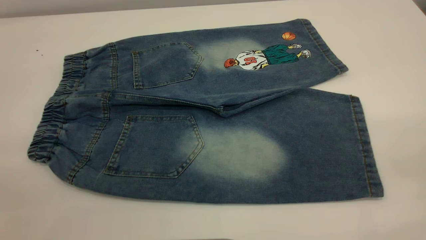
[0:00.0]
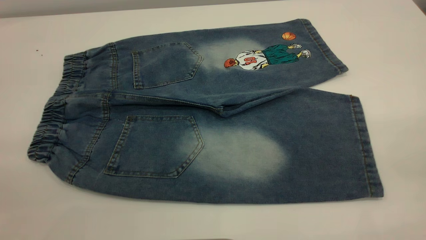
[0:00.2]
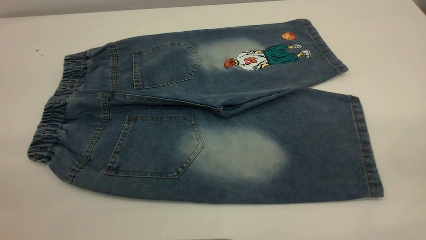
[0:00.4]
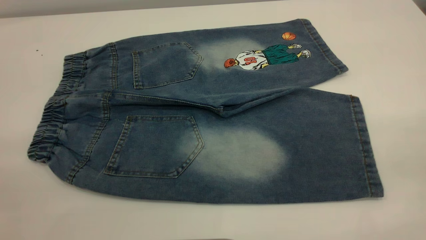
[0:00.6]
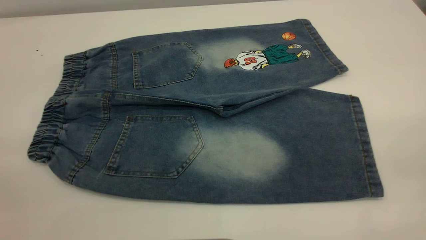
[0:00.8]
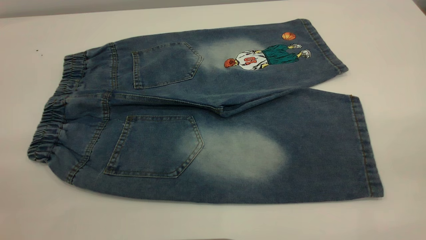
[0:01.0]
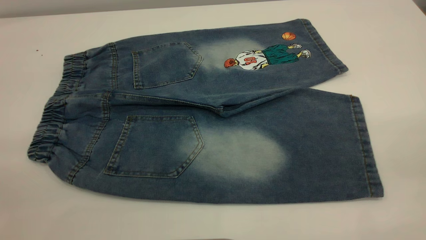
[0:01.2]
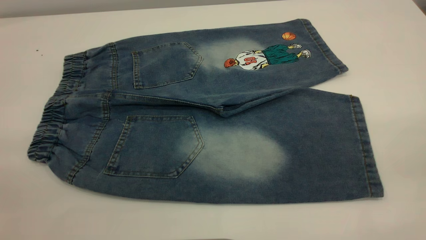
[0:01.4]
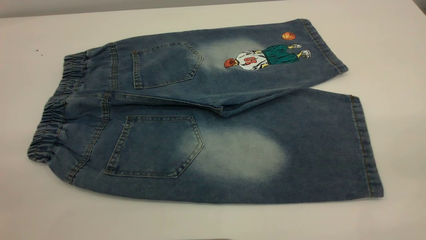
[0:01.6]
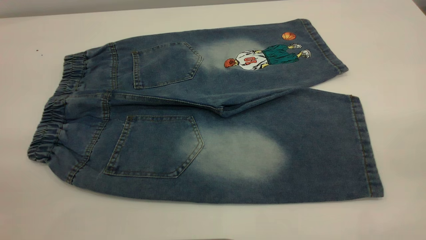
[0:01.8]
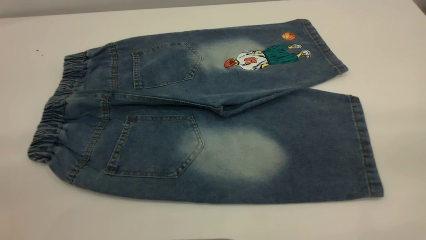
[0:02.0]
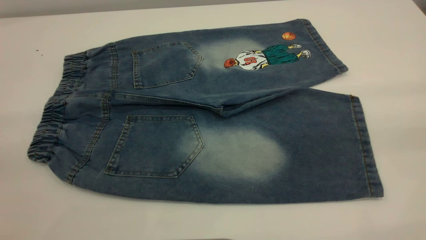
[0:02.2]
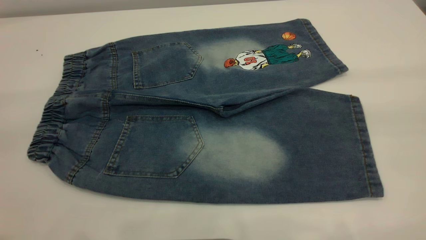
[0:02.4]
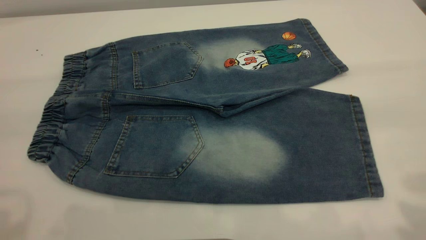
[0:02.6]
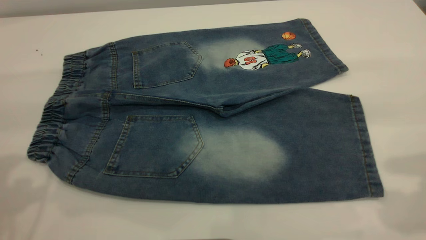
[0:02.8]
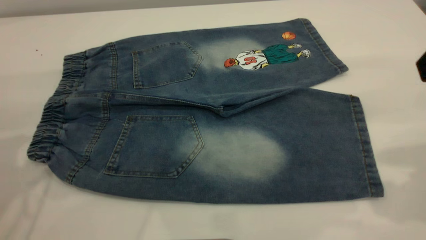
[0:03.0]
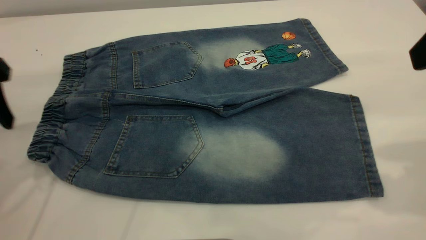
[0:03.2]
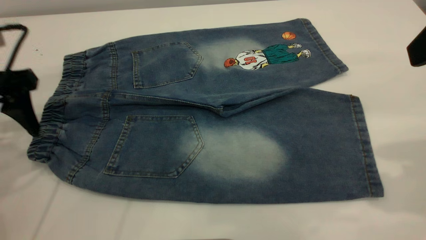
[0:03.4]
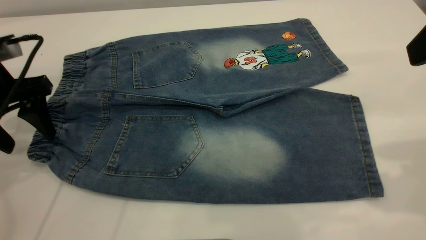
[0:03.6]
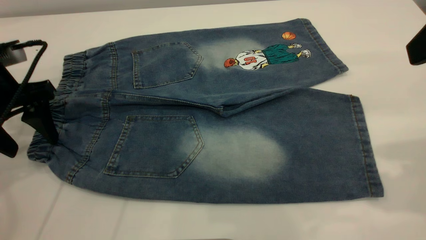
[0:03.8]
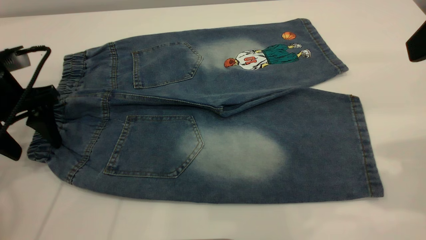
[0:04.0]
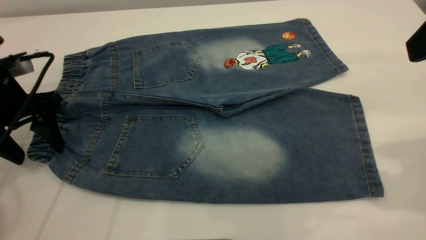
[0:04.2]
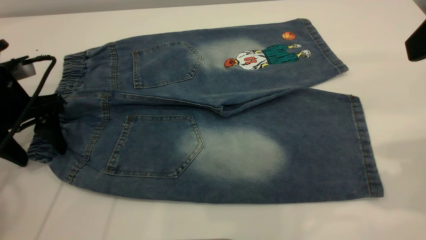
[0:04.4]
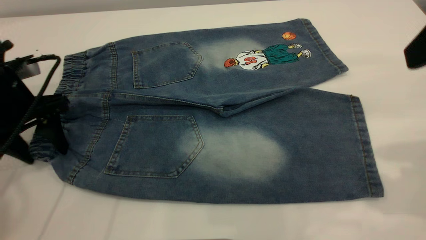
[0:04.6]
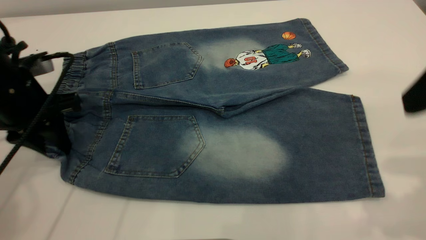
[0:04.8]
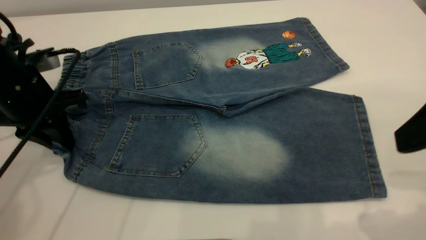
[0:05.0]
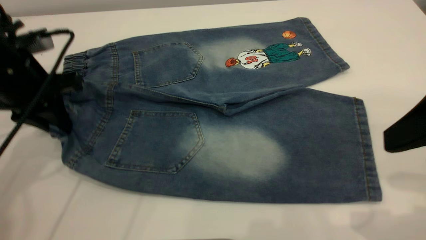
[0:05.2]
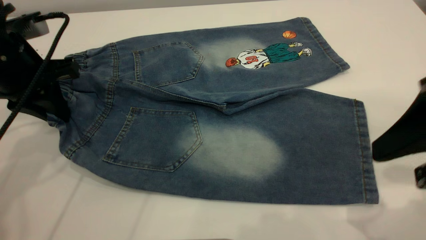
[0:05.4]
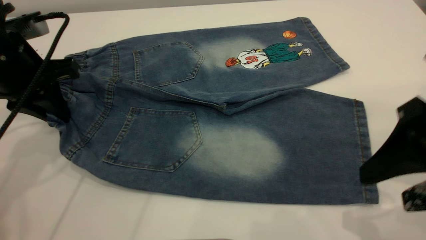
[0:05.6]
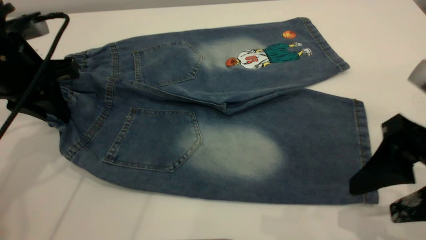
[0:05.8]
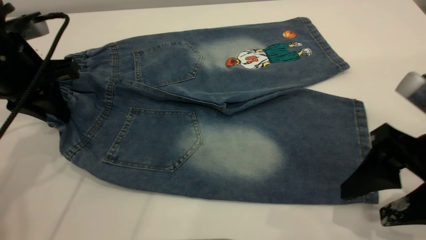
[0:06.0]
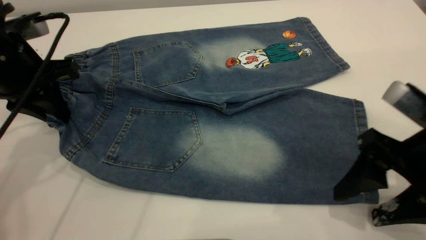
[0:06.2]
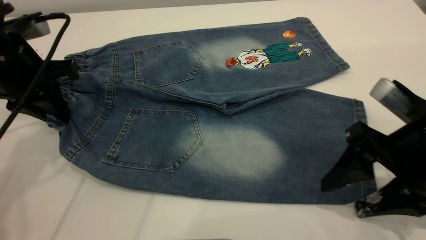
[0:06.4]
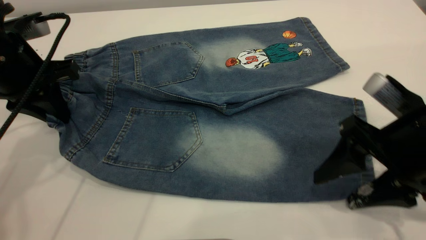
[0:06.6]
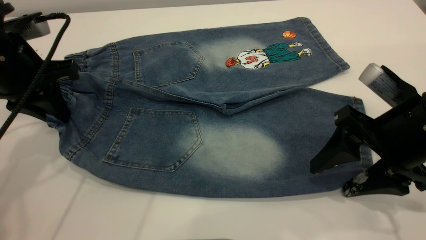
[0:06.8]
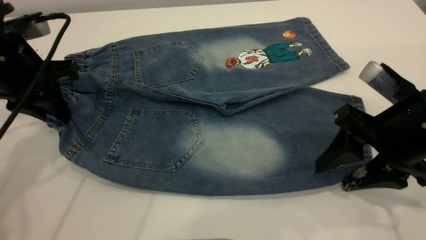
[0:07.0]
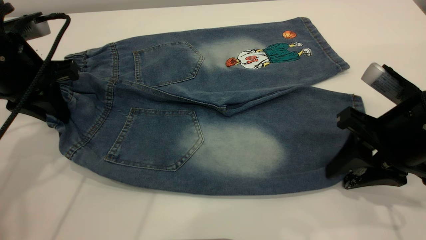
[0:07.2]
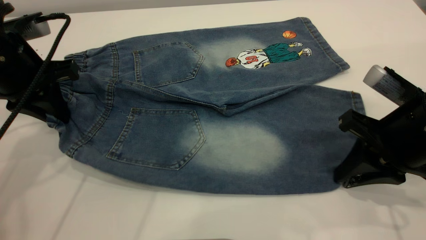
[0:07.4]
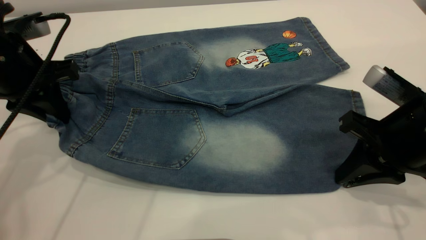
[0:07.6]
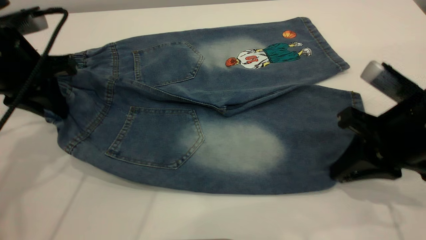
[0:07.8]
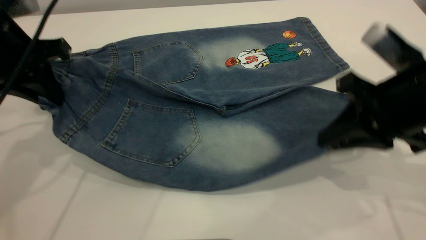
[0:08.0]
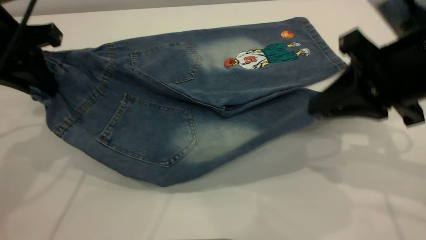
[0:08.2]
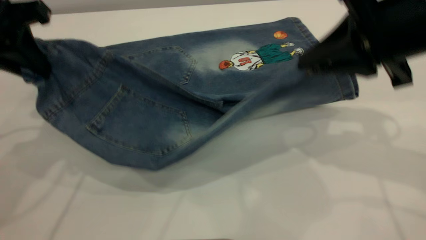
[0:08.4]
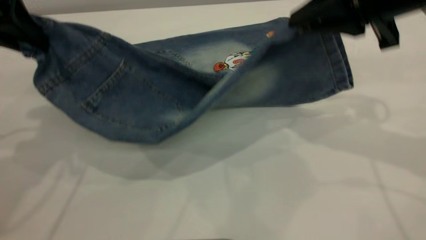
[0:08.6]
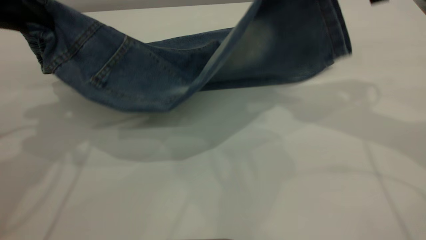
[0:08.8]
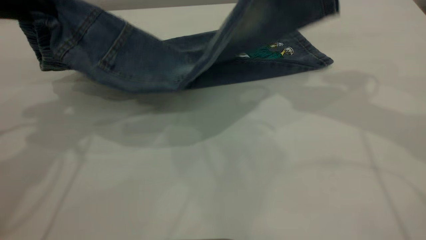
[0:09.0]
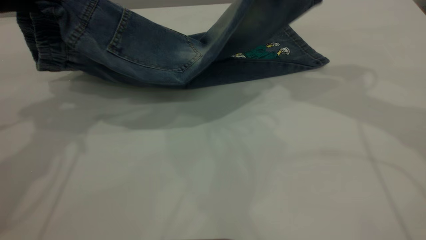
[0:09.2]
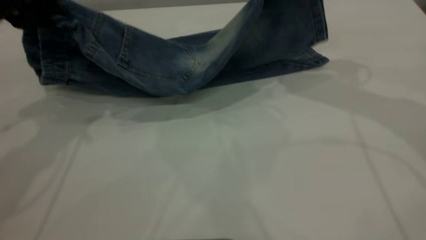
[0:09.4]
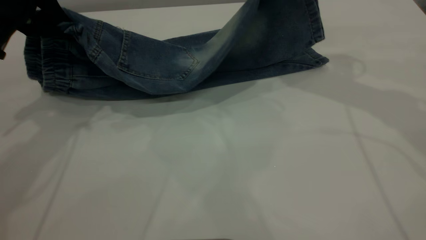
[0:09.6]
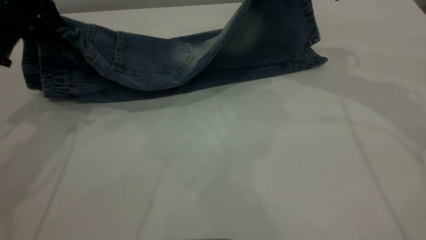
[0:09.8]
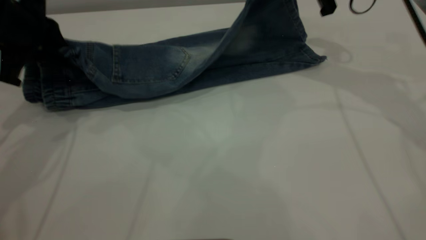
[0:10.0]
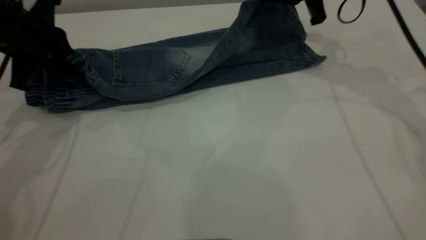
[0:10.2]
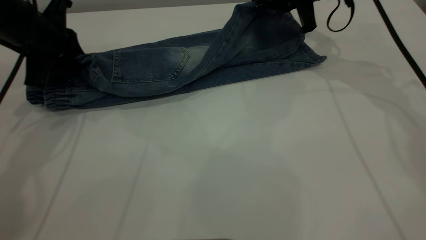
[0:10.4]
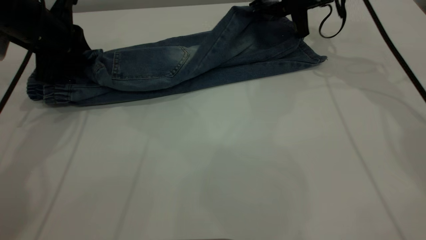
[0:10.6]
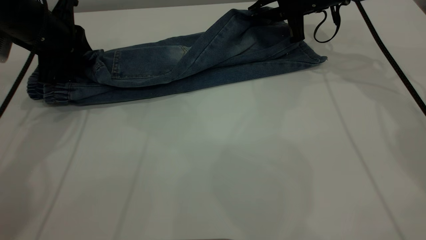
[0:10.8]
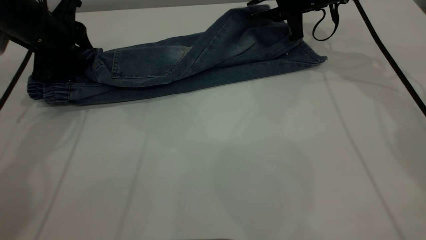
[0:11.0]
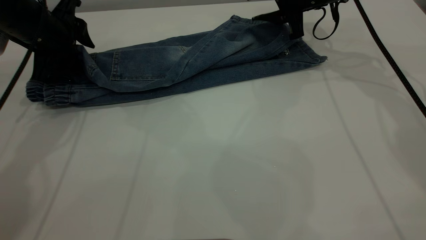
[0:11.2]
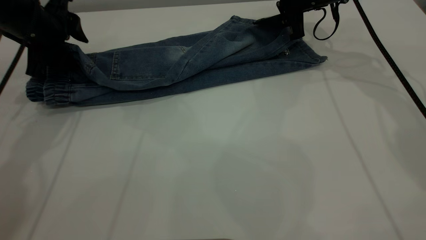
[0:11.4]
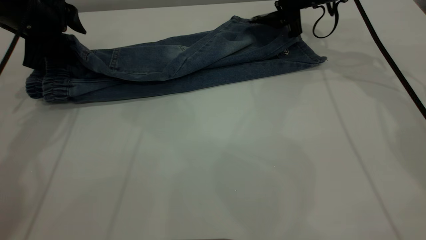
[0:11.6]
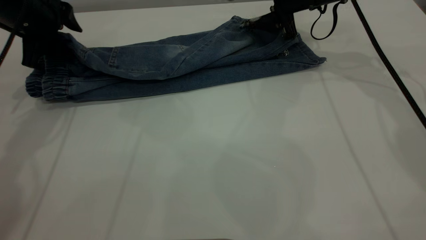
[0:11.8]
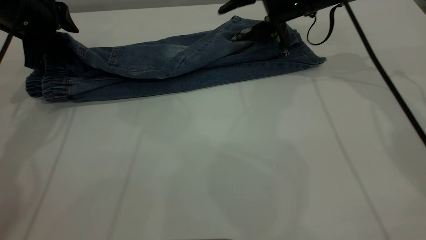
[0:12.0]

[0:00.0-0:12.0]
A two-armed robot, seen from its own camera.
0:00.0 to 0:01.6: The two grippers keep their place.
0:03.0 to 0:04.4: The left gripper travels downward and forward by some 15 cm.
0:04.4 to 0:06.0: The right gripper is displaced downward by some 15 cm, while the left gripper ends up some 5 cm from where it was, and closes its fingers.
0:06.0 to 0:07.6: The right gripper travels forward by some 5 cm, and closes.
0:07.6 to 0:09.0: The left gripper goes about 10 cm upward, while the right gripper heads upward and forward, covering approximately 20 cm.
0:09.0 to 0:10.4: The right gripper shifts some 20 cm forward and downward. Meanwhile the left gripper is displaced downward and forward by about 15 cm.
0:10.4 to 0:12.0: The right gripper opens. The left gripper opens.

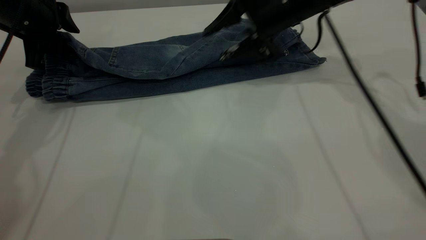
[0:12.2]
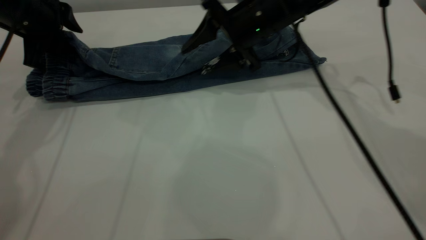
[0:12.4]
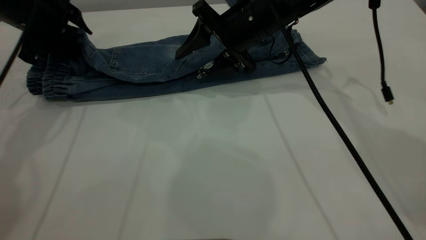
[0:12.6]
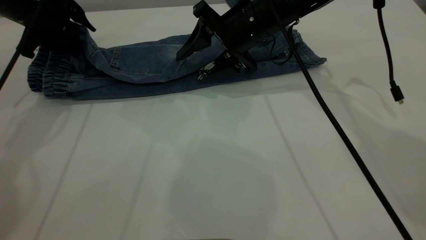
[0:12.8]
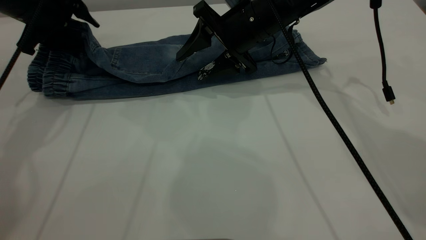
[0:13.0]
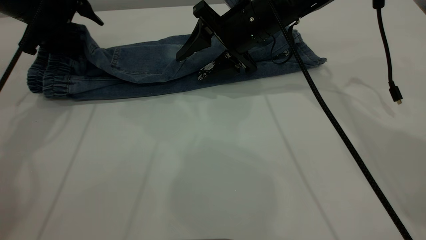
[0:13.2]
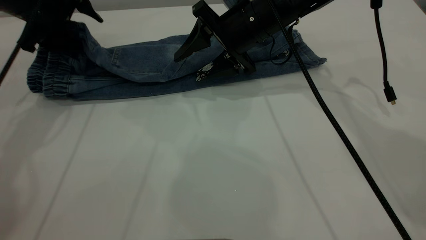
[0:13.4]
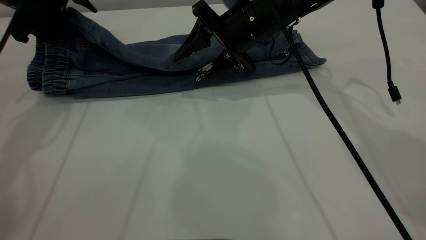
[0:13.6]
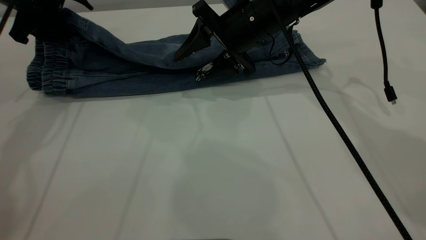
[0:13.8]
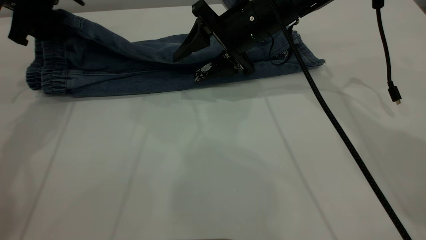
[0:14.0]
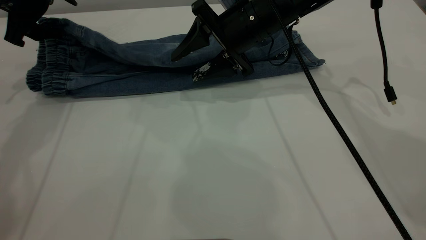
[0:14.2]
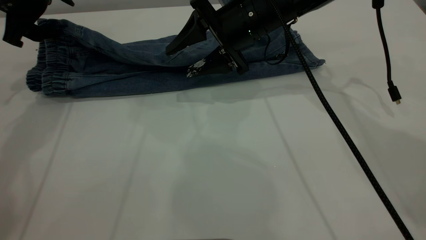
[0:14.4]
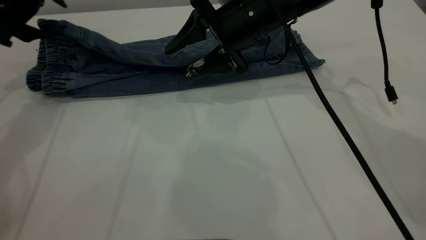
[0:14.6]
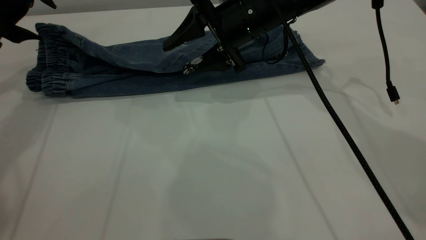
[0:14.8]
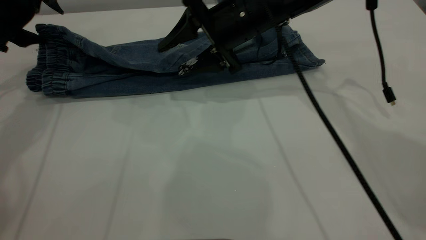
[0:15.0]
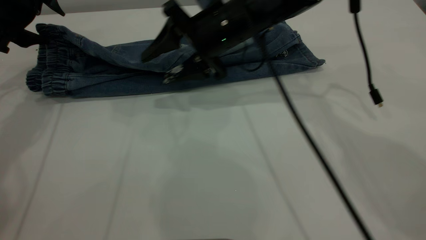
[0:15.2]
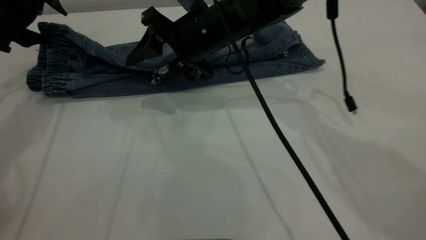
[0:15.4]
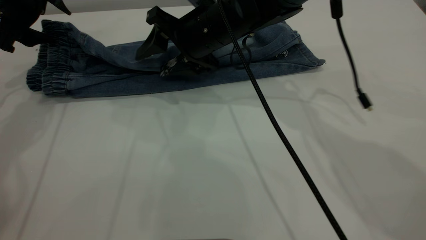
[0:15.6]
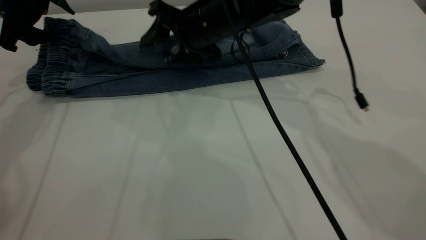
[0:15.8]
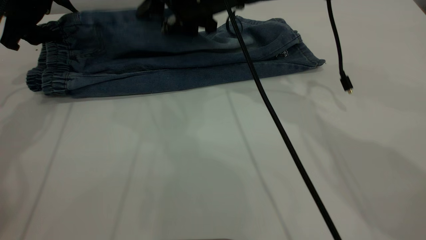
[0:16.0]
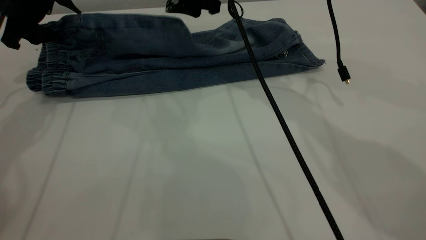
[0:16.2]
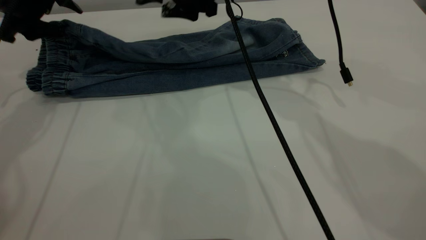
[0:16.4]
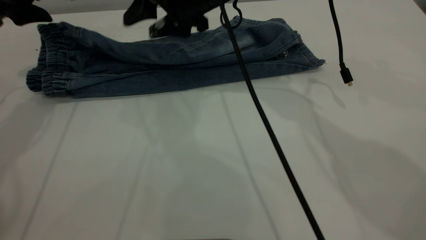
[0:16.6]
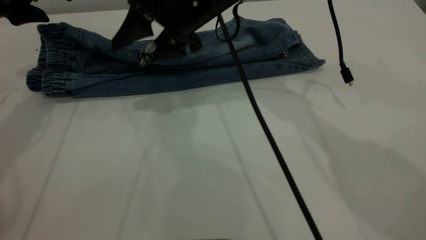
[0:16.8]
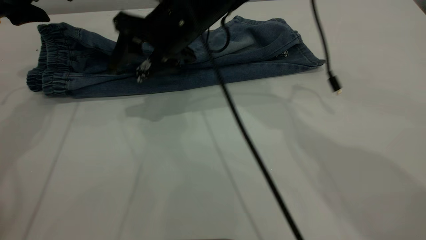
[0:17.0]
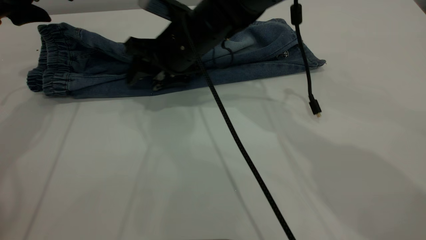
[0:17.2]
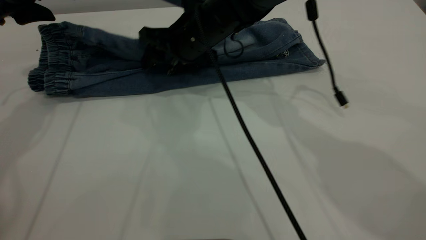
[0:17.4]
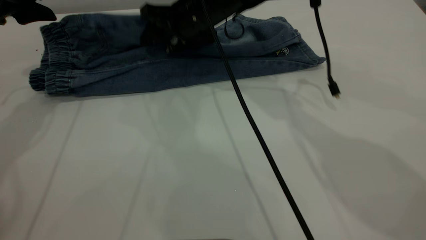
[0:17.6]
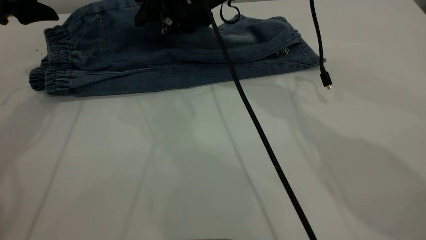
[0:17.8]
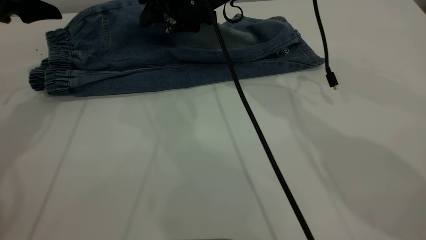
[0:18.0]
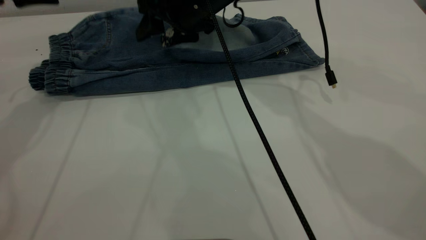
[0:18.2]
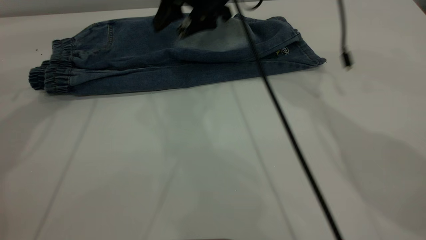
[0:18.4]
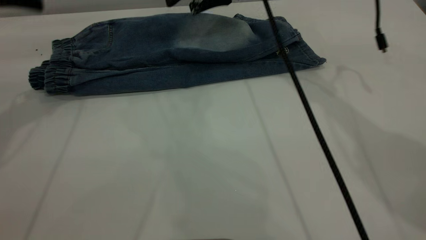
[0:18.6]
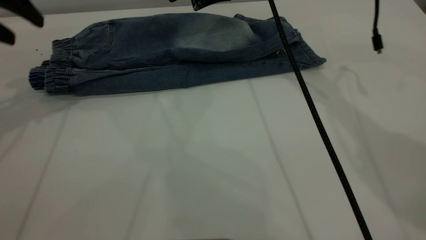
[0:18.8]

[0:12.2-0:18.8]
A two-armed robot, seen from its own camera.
Step, 0:12.2 to 0:18.8: Fold the bottom of the pants upward.
0:12.2 to 0:13.8: The left gripper opens its fingers.
0:13.8 to 0:15.4: The right gripper travels to the left by about 5 cm.
0:17.2 to 0:18.8: The right gripper shifts approximately 15 cm upward, to the right and forward. The left gripper moves roughly 5 cm.
